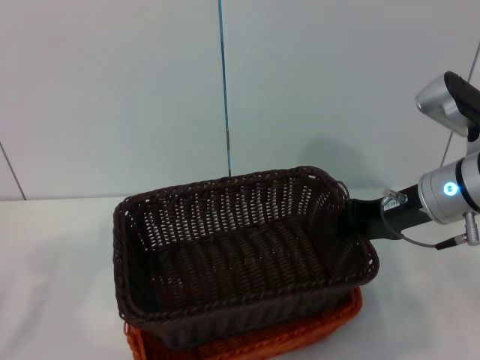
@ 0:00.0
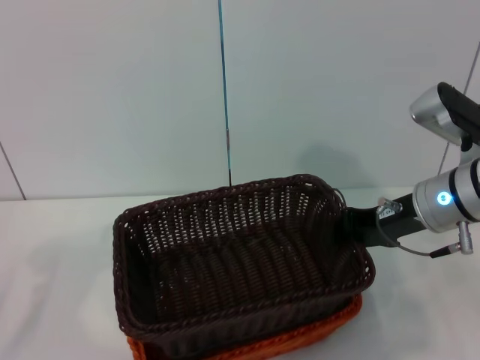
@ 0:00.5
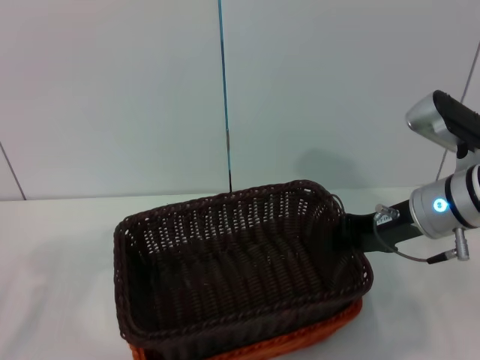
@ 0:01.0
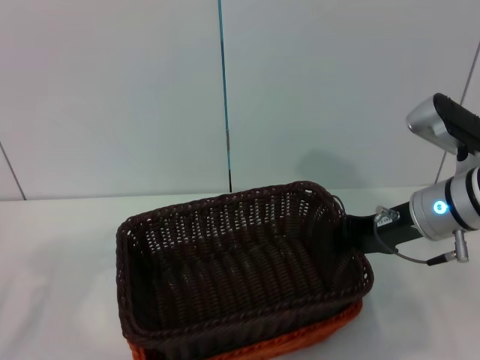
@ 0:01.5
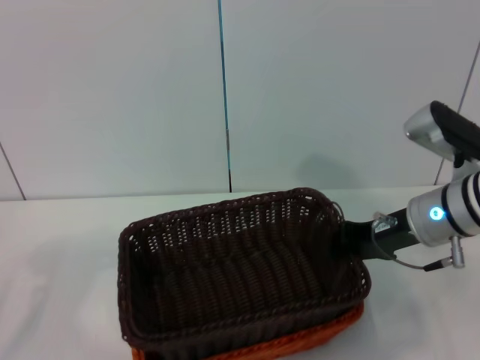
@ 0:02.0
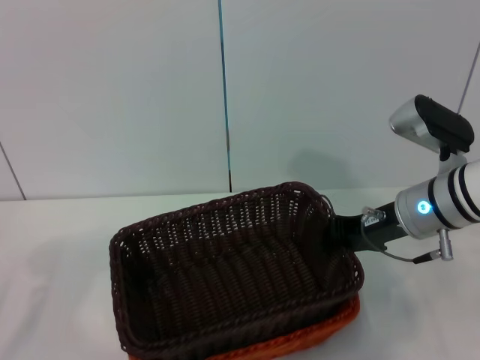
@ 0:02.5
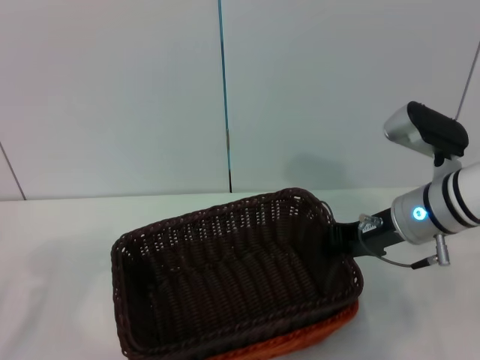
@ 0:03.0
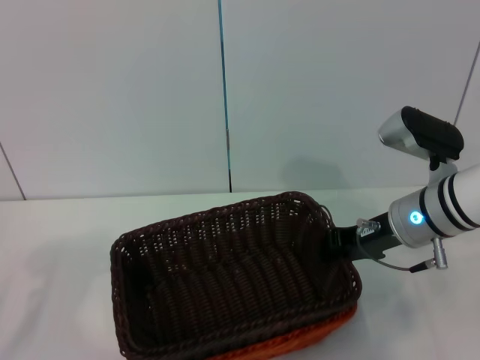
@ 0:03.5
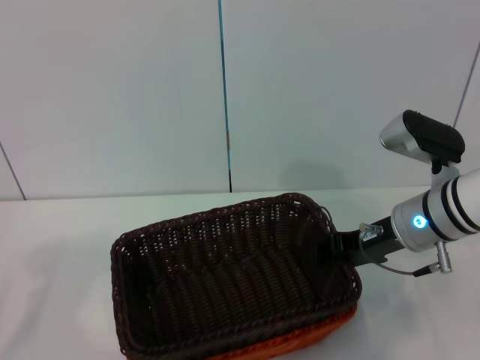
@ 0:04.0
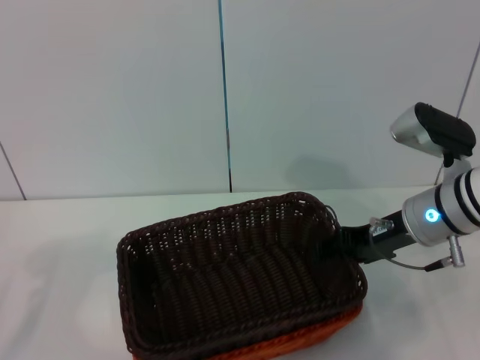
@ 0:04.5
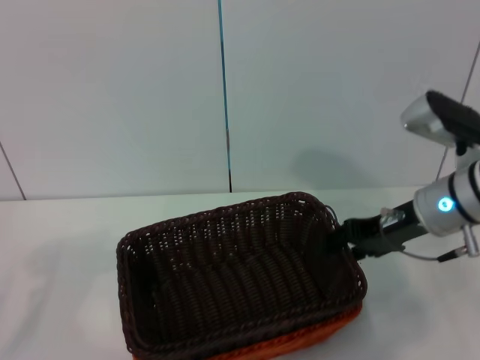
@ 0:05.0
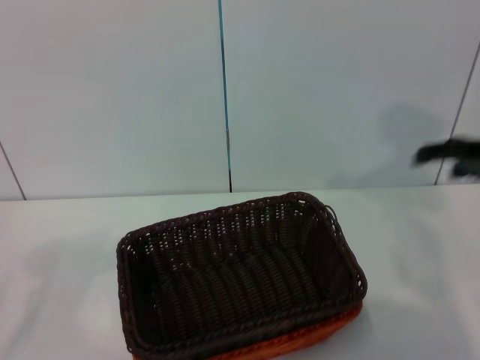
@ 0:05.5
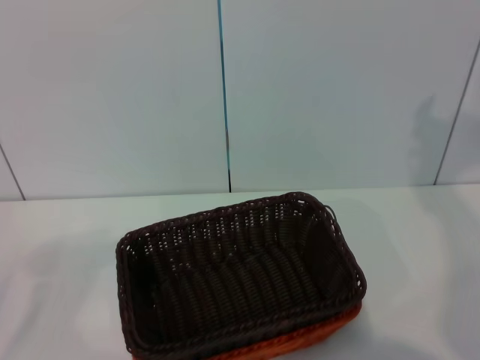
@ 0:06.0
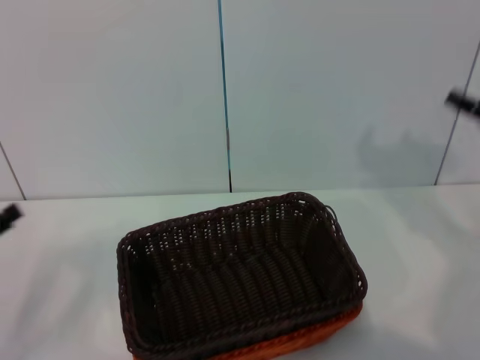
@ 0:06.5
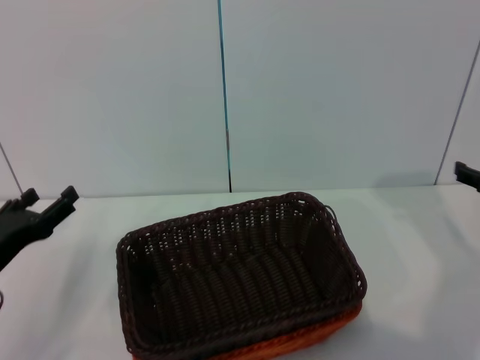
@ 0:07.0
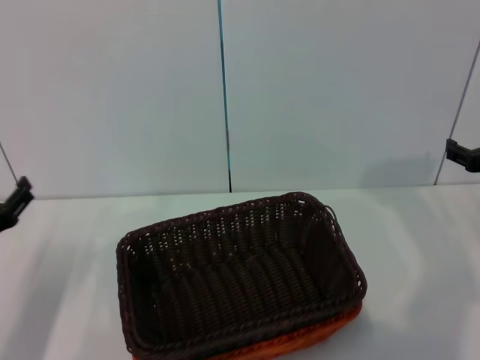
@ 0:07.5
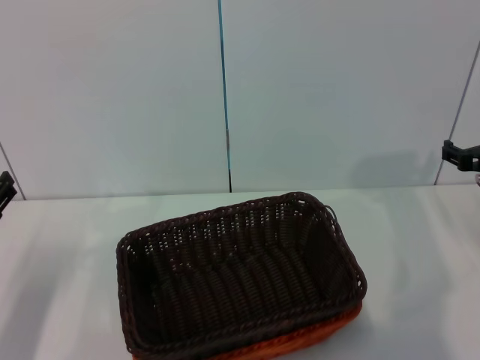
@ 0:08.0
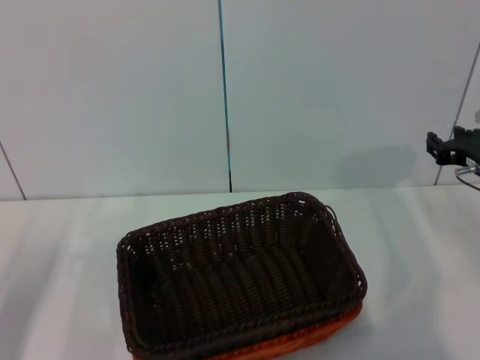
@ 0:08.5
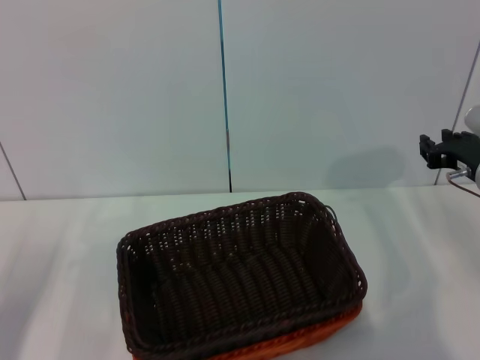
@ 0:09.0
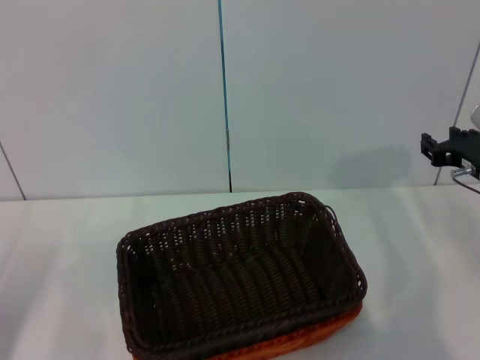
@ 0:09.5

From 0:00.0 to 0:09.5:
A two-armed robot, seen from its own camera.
Step, from 0:00.0 to 0:05.0: Place the dark basket on the light basket with the right gripper.
From 0:00.0 to 0:04.0: The grippers stay close to where they were, moving slightly.
From 0:04.0 to 0:05.5: The right gripper heads to the right and upward, covering some 15 cm, and opens up.
From 0:05.5 to 0:07.5: The left gripper is displaced to the right, forward and downward by approximately 15 cm. The right gripper heads downward, covering about 10 cm.
From 0:07.5 to 0:09.5: The right gripper closes. Meanwhile the left gripper ends up some 5 cm from where it was.
